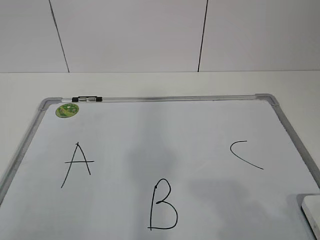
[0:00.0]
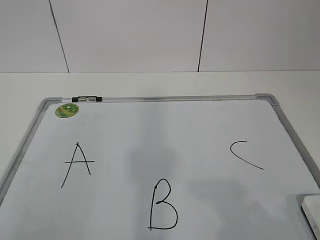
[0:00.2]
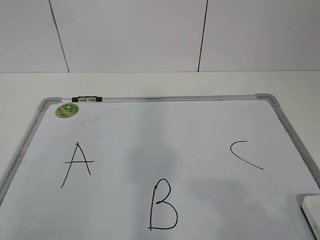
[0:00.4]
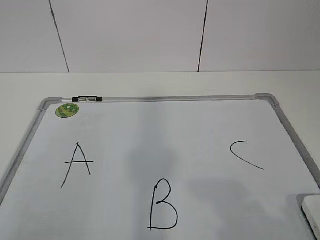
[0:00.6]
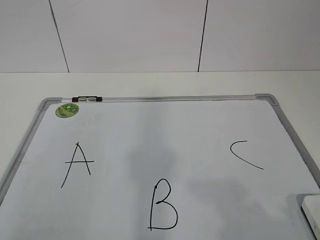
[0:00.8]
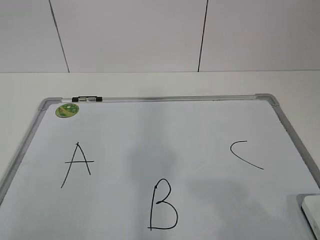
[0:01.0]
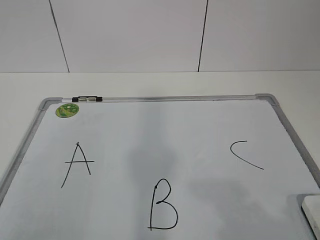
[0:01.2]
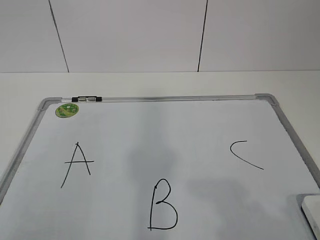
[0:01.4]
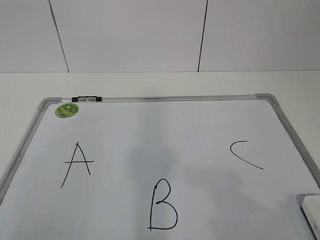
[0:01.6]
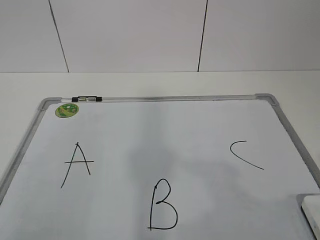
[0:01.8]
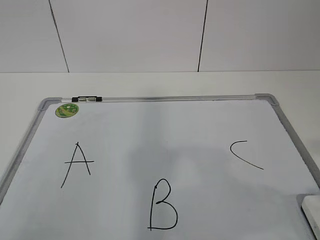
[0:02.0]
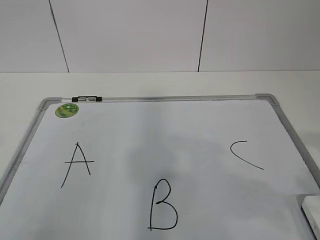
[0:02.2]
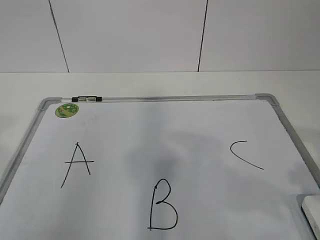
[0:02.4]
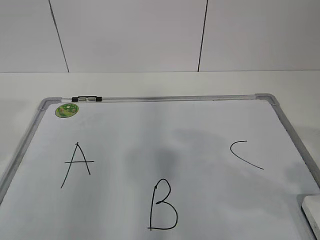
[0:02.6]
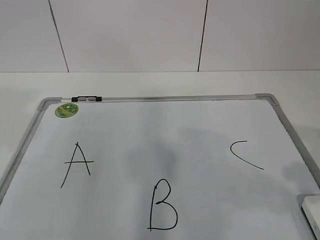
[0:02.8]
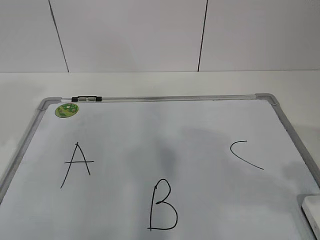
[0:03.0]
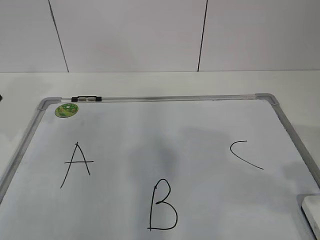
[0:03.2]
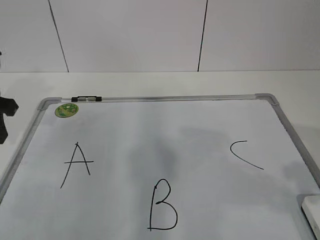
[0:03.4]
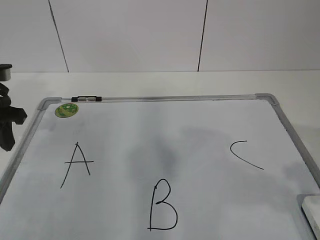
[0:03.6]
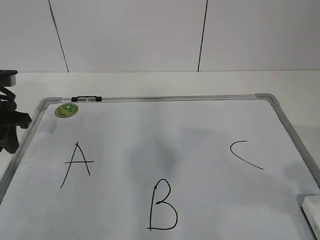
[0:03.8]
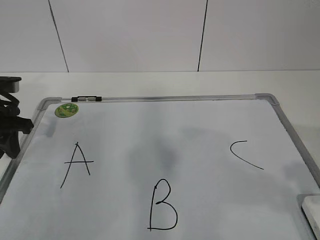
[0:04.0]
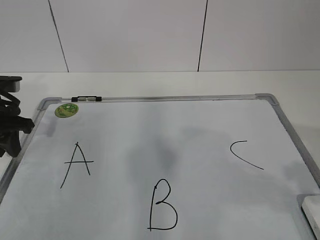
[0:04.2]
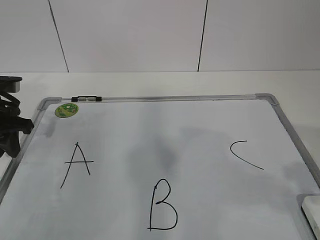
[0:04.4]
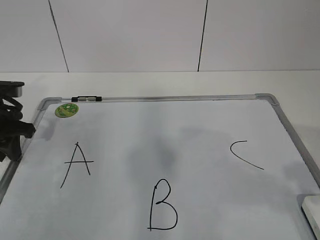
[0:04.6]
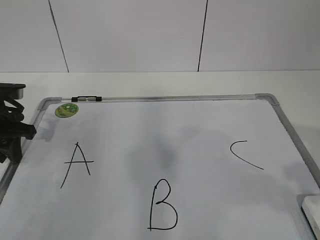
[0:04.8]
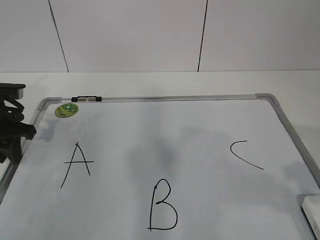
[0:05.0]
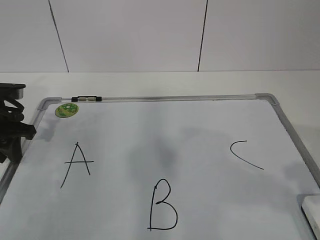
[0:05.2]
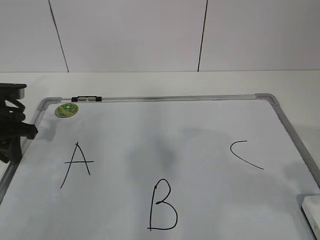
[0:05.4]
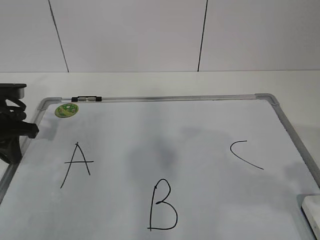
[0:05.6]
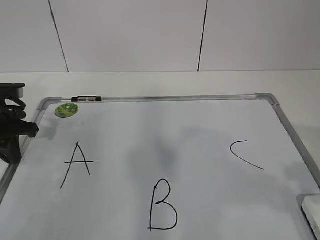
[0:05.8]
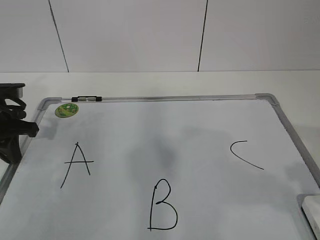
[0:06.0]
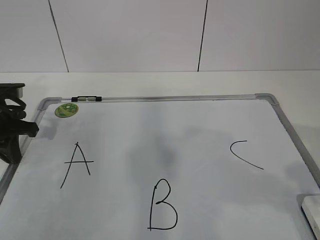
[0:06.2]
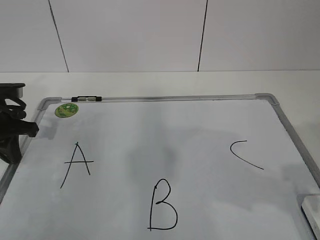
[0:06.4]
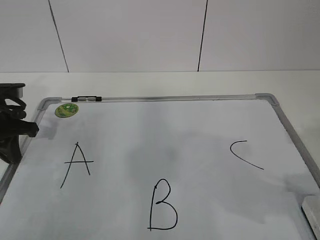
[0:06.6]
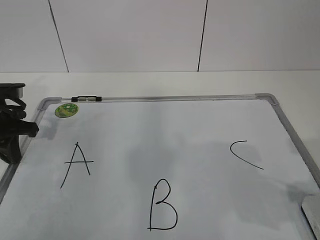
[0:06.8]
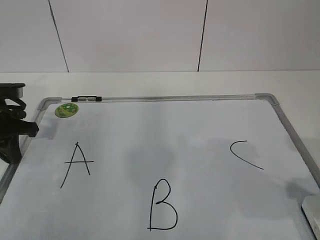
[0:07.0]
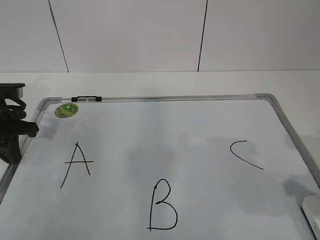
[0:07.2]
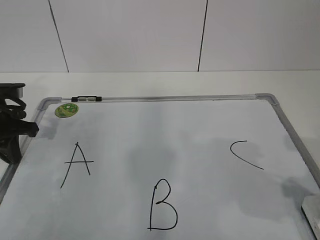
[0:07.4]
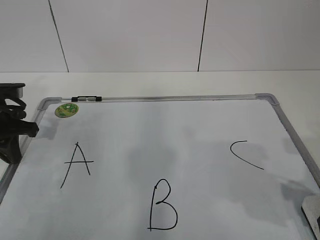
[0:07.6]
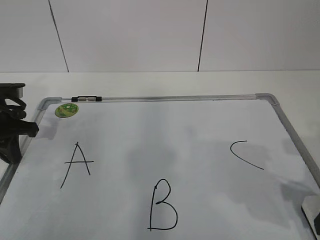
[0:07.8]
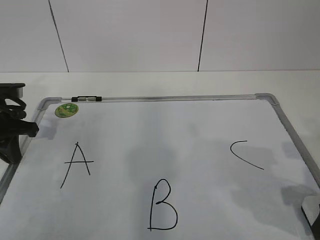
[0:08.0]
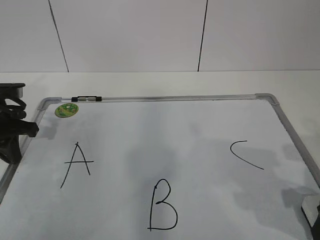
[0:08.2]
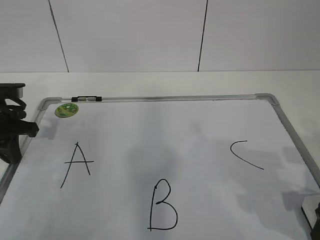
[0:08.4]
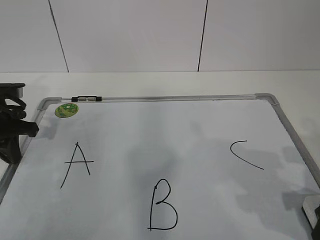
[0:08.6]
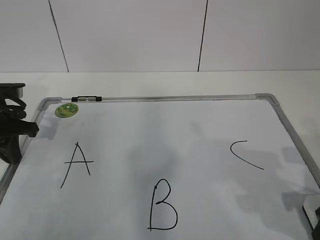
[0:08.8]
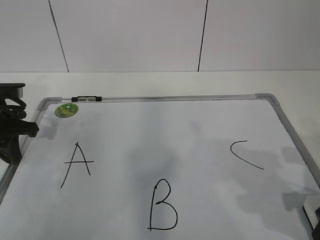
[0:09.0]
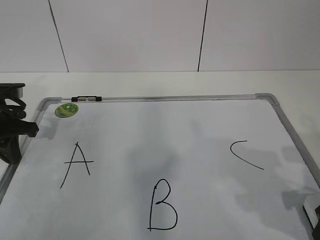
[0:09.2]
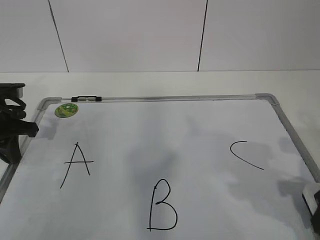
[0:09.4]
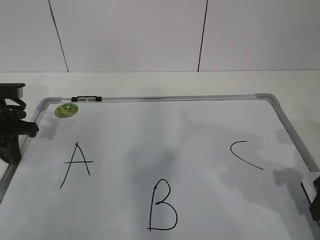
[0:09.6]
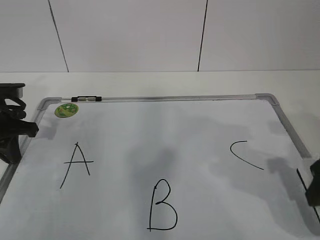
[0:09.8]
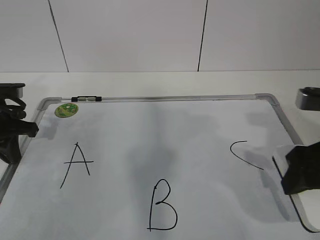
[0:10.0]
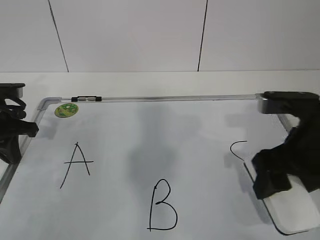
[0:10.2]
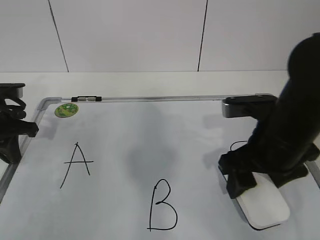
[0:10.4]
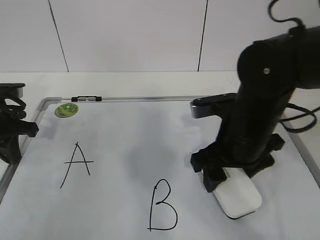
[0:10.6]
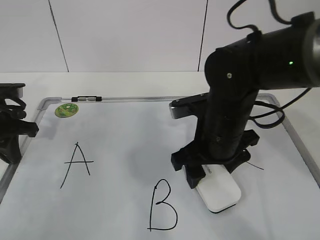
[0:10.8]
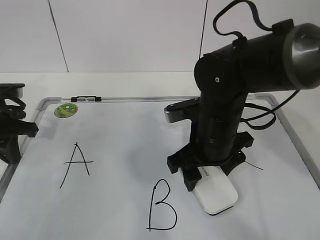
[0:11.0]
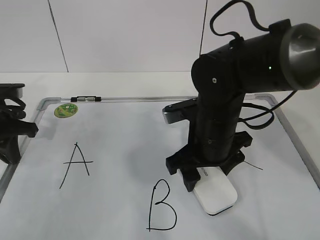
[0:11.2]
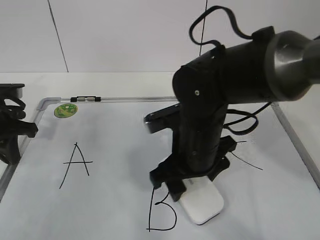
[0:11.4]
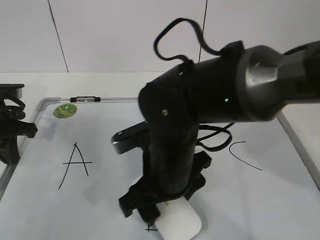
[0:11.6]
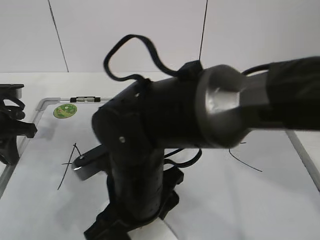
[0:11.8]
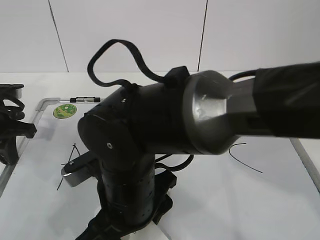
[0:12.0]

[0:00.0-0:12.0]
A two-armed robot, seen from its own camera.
Task of the whole recording: pick up the eraser on the blackboard and erase the letter "B".
Step, 0:00.0 to 0:04.8: Hold the drawing board steady with your left hand.
Step, 0:07.8 to 0:11.8: Erase the letter B with your right hand.
0:01.6 to 0:03.0: The left gripper shifts some 25 cm forward; the right gripper goes approximately 10 cm forward.
0:03.0 to 0:04.4: The left gripper travels downward and forward by some 15 cm.
0:04.4 to 0:06.0: The left gripper closes.
0:06.0 to 0:07.6: The right gripper shifts about 10 cm downward and forward, and opens its fingers.
0:07.6 to 0:09.0: The right gripper closes its fingers.
0:09.0 to 0:10.4: The right gripper is displaced to the left and forward by about 15 cm.
0:10.4 to 0:12.0: The right gripper is displaced to the left by about 20 cm.

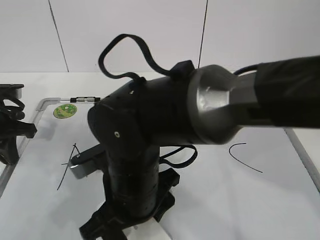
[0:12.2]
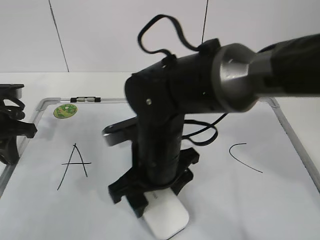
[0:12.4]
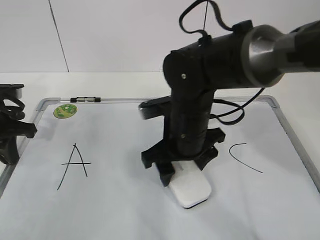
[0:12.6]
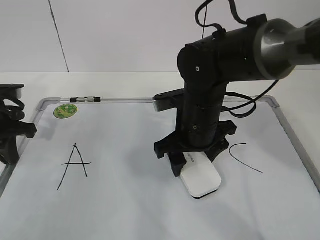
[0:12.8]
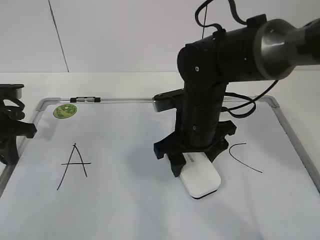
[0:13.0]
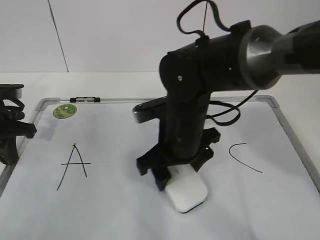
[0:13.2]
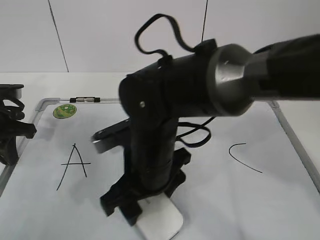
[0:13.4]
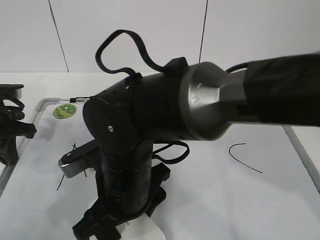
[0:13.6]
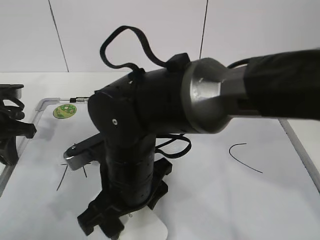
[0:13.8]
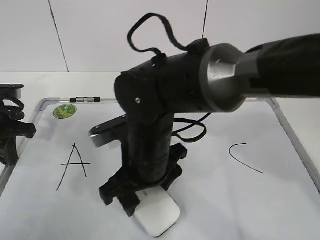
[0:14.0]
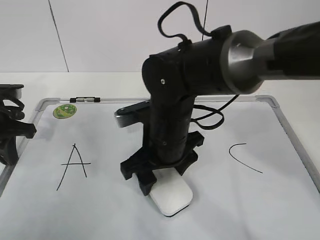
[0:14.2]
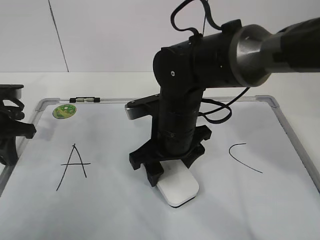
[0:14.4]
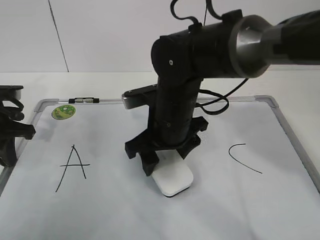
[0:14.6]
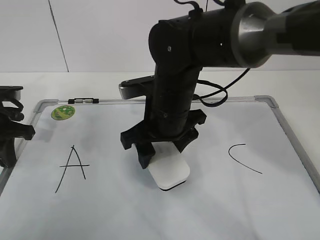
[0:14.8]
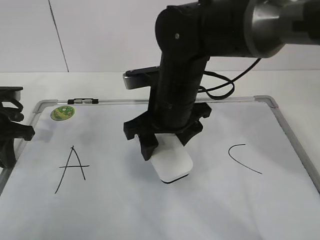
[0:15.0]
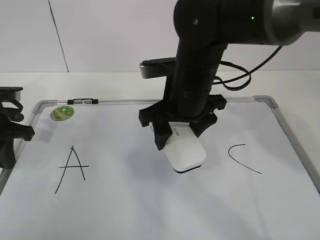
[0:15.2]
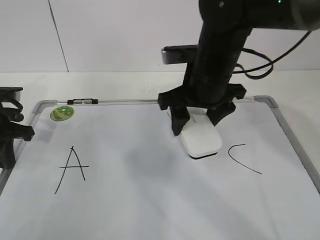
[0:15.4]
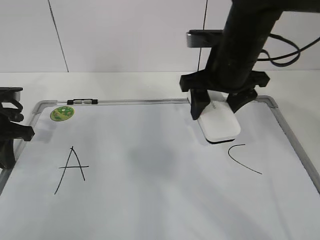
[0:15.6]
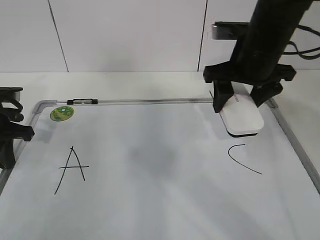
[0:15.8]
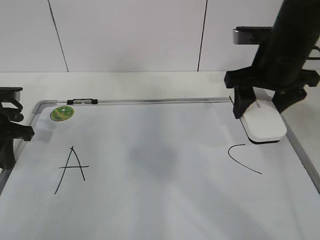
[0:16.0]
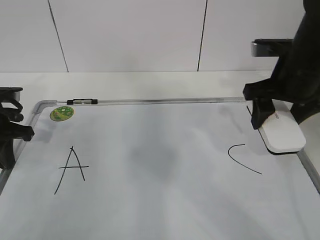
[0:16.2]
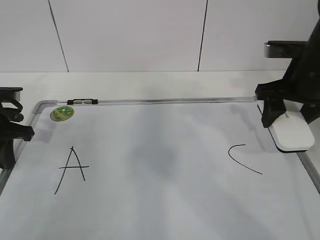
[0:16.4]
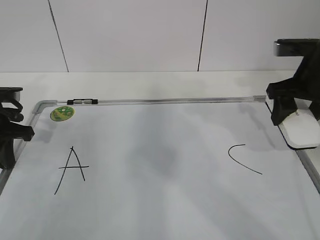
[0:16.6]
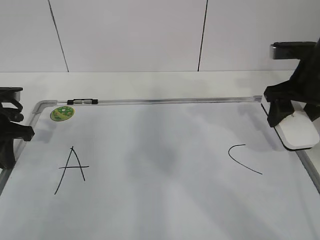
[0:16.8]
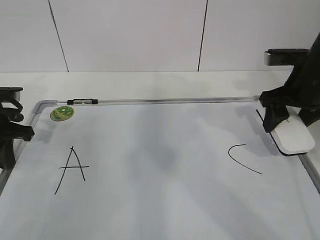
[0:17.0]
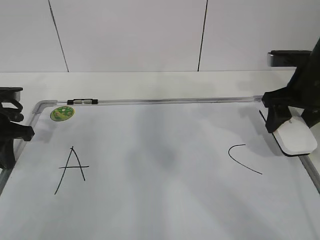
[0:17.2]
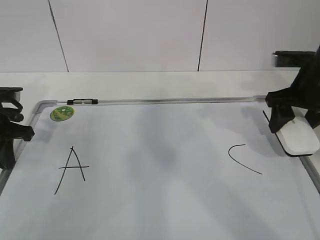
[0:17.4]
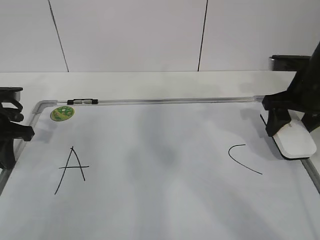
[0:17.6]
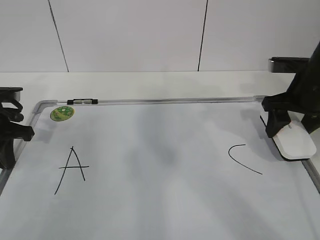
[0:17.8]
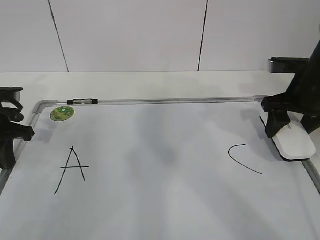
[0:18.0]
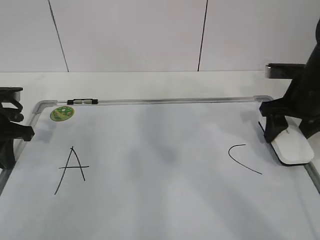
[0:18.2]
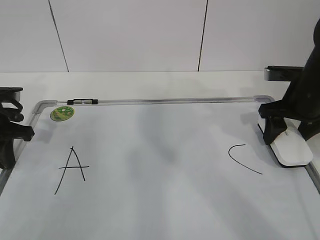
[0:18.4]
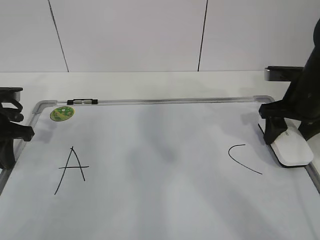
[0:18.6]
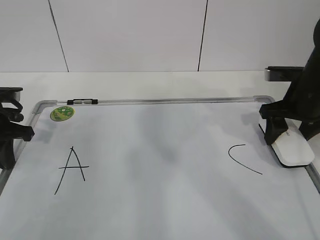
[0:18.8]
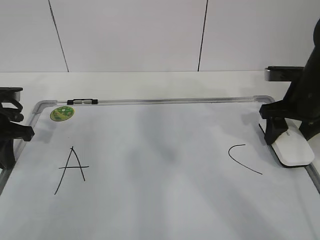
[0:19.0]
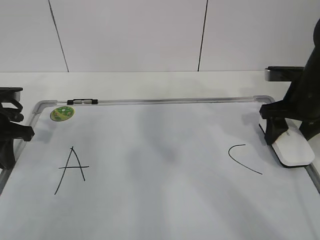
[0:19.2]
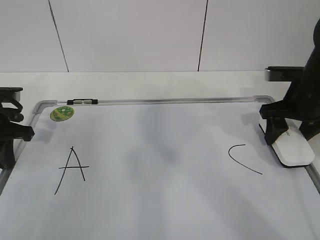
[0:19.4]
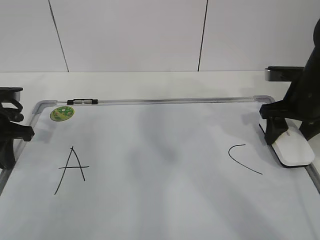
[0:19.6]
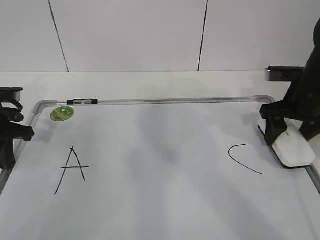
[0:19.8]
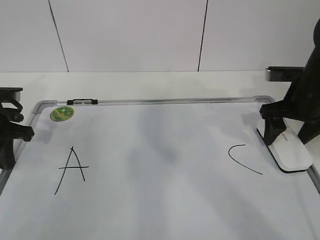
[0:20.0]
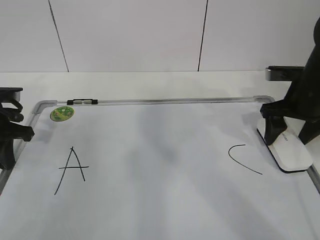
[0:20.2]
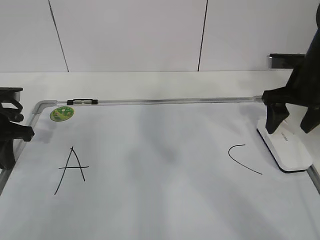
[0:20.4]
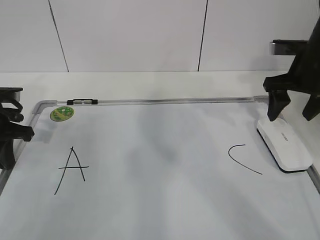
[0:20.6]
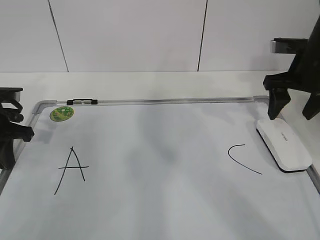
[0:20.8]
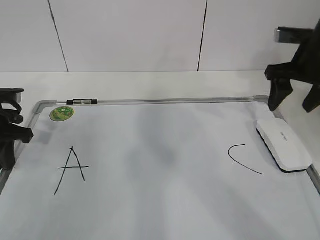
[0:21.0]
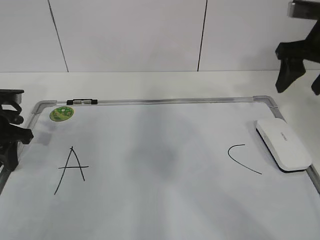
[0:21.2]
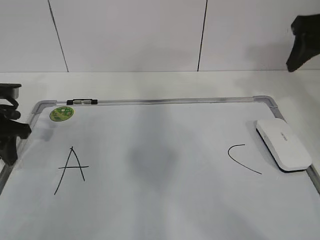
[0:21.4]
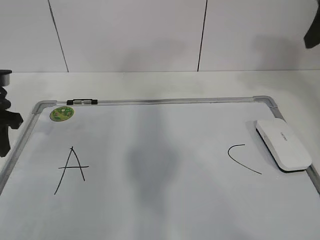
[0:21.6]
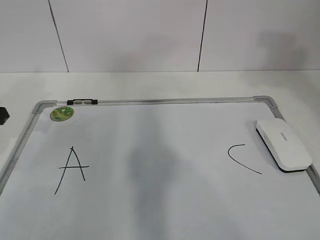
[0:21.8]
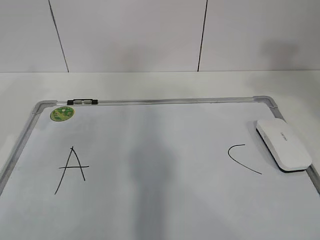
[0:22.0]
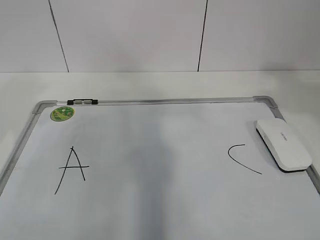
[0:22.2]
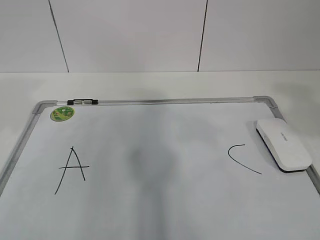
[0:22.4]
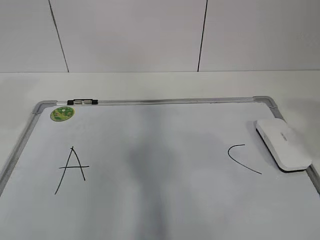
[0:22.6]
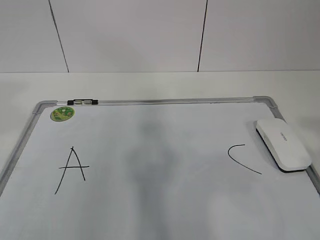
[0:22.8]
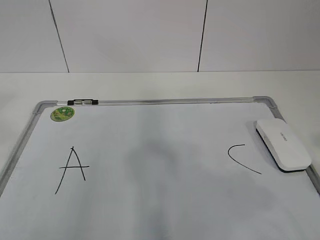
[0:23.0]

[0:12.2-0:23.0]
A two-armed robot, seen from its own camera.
Task of the whole recording: pick up the eraser on the blackboard and erase the letter "B".
Step, 0:12.2 to 0:16.4: Put down the eraser with your right hand.
0:12.2 to 0:13.8: The right gripper travels to the right and back again, approximately 10 cm each way.
0:13.8 to 0:15.2: The right gripper heads forward, to the right and upward, covering about 15 cm.
0:15.2 to 0:16.8: The right gripper heads to the right, covering about 20 cm.
0:16.8 to 0:18.4: The grippers stay close to where they were, moving slightly.
0:18.4 to 0:20.0: The right gripper opens.
0:20.0 to 0:21.4: The right gripper travels upward by approximately 15 cm, and closes. Meanwhile the left gripper opens its fingers.
0:21.4 to 0:23.0: The right gripper goes roughly 30 cm backward, while the left gripper goes roughly 35 cm backward and upward.
